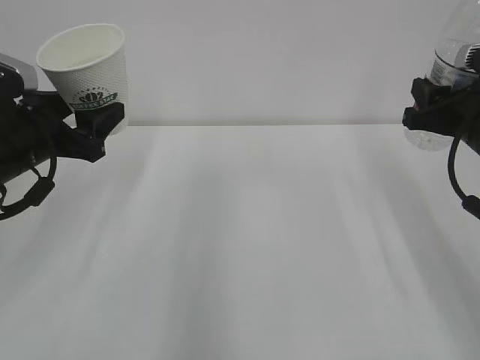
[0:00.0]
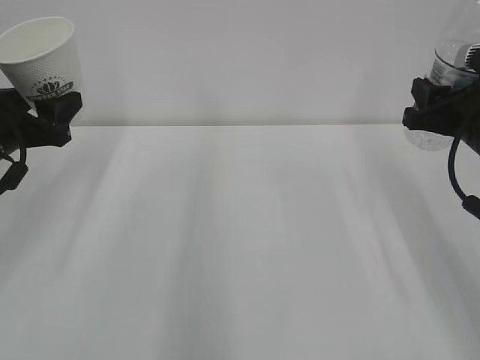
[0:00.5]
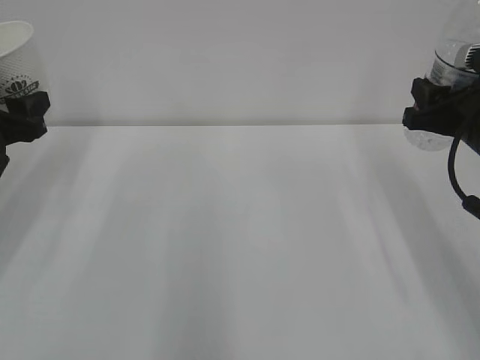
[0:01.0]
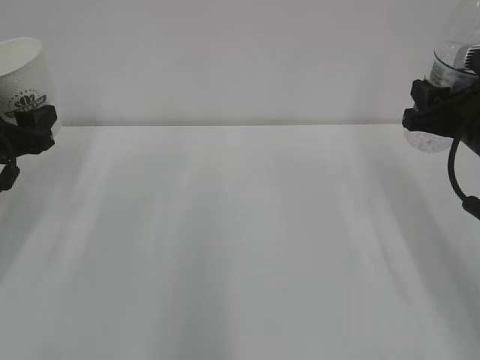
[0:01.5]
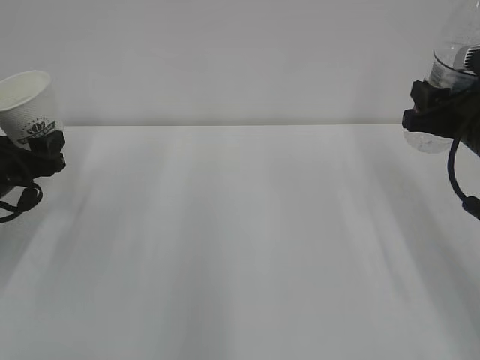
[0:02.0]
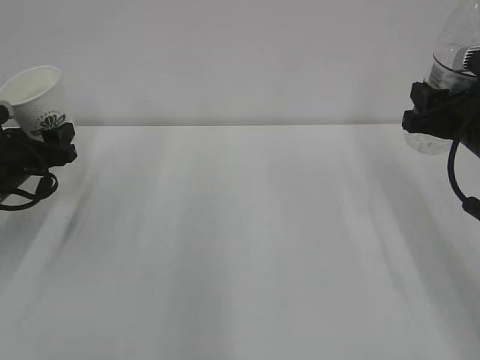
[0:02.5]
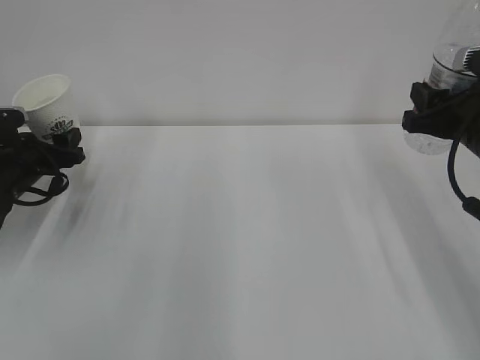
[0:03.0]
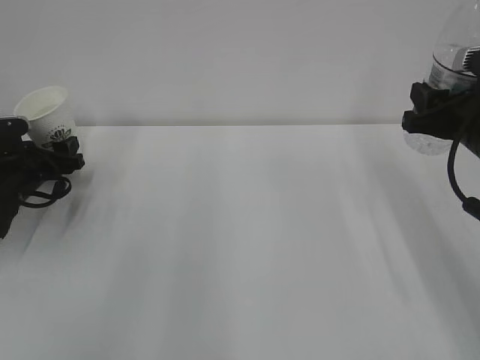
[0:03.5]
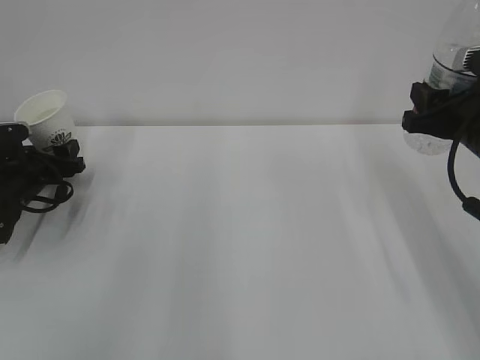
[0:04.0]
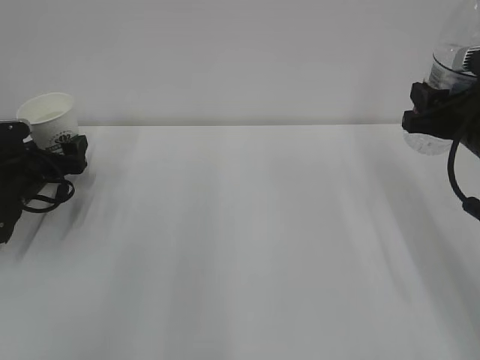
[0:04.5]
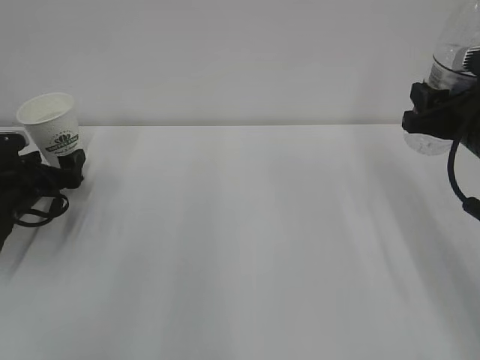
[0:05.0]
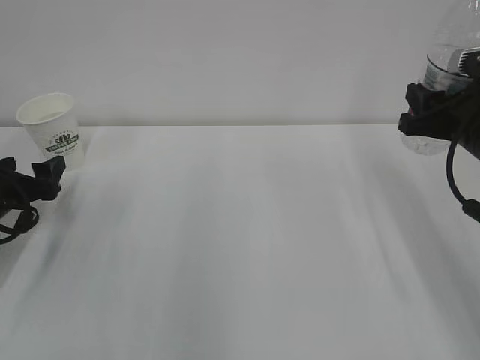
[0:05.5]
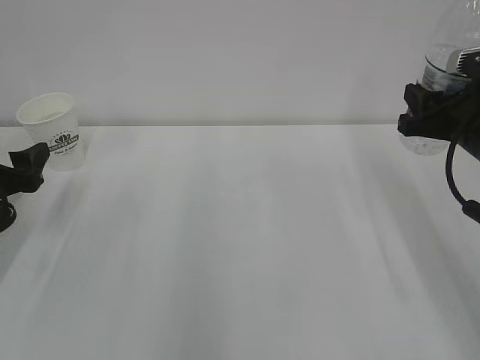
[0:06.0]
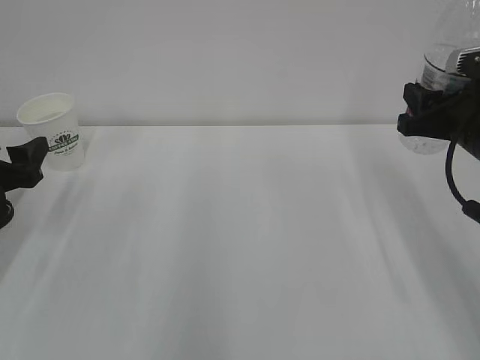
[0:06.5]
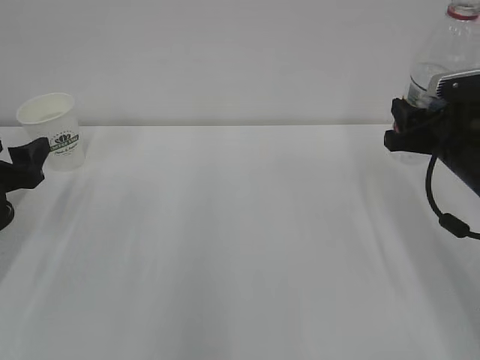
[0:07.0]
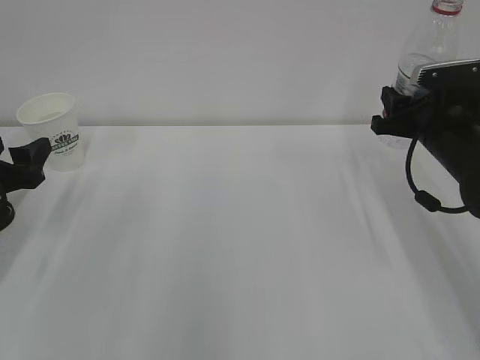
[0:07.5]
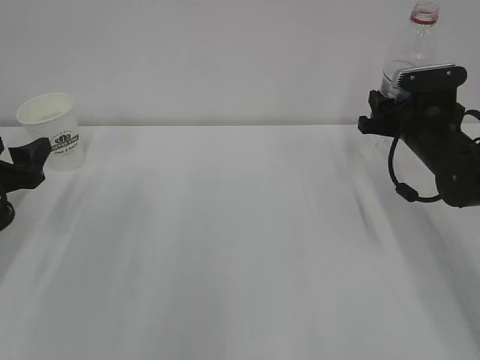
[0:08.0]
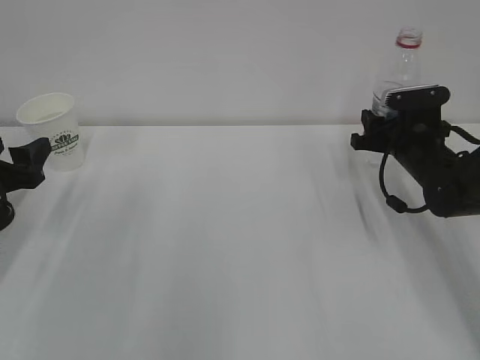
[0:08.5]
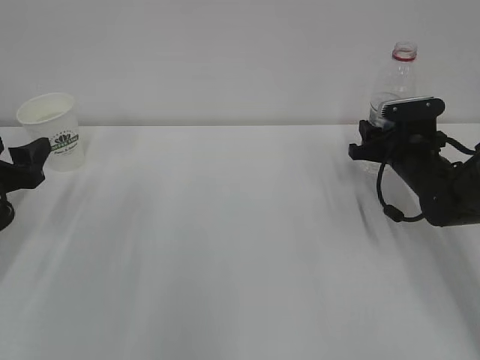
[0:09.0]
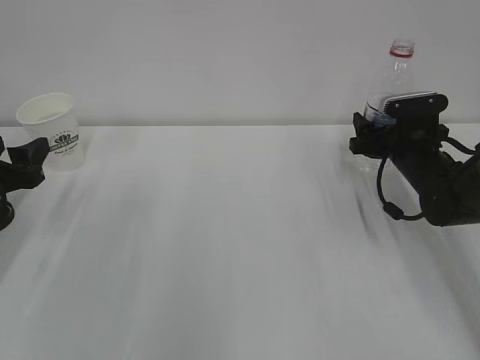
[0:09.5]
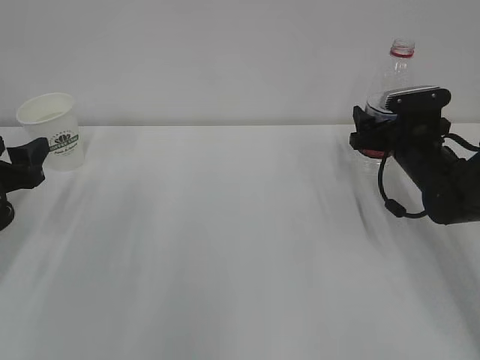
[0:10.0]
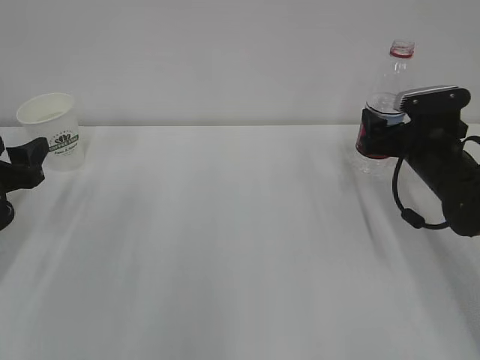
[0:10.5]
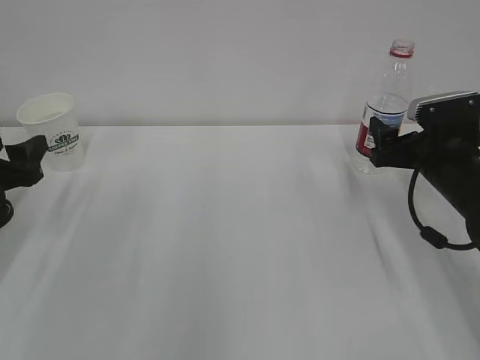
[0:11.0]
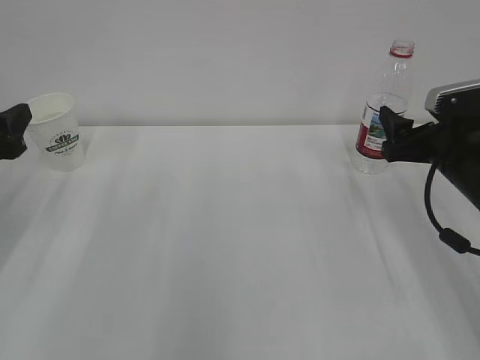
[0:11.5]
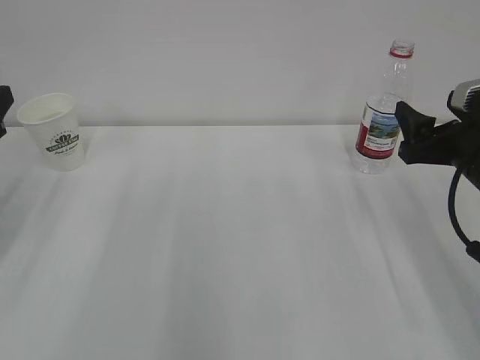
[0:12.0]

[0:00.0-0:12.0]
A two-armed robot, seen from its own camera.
0:00.0 to 0:02.0: The left gripper goes approximately 10 cm to the left and downward.
0:02.0 to 0:04.0: The left gripper moves forward and downward, roughly 10 cm.
0:04.0 to 0:06.0: The left gripper is displaced backward and upward by about 15 cm, and opens up.
0:06.0 to 0:08.0: The right gripper is displaced forward and downward by roughly 10 cm.
0:08.0 to 0:10.0: The right gripper opens.
0:10.0 to 0:12.0: The right gripper moves backward and upward, some 15 cm; the left gripper shifts roughly 10 cm upward.

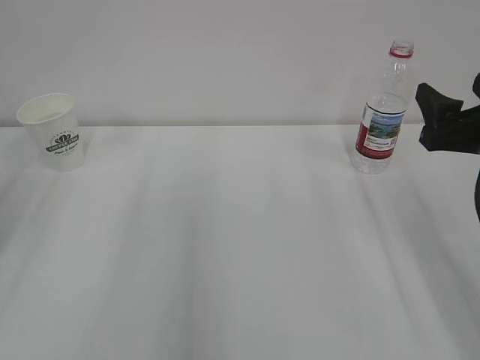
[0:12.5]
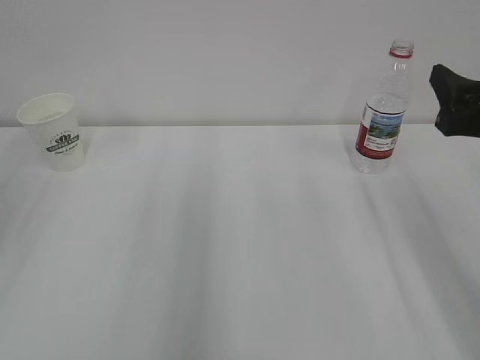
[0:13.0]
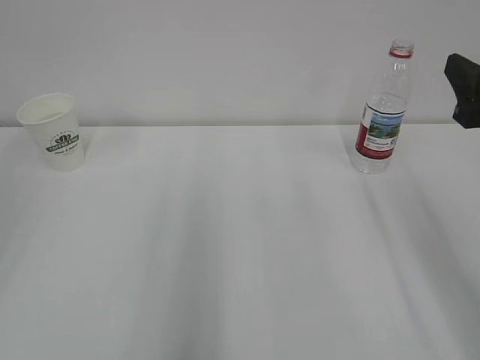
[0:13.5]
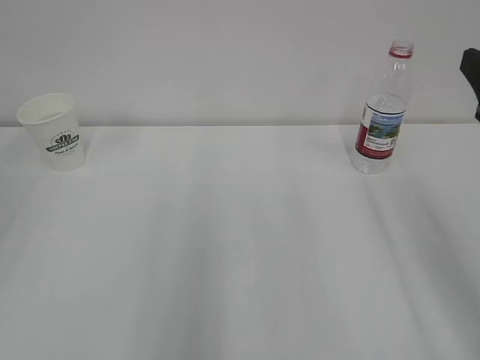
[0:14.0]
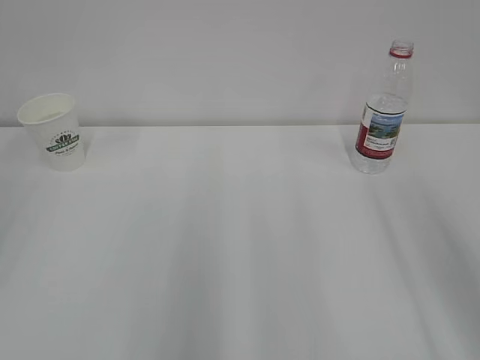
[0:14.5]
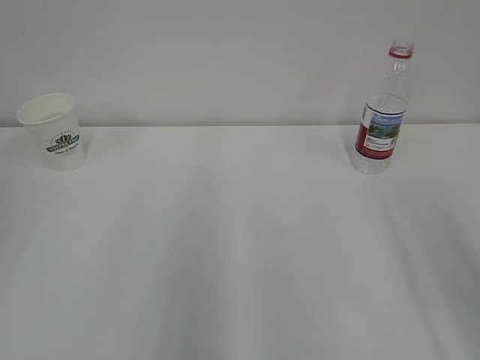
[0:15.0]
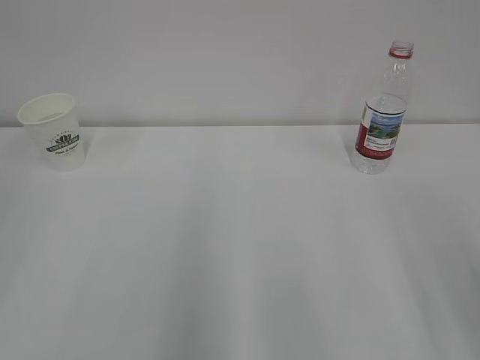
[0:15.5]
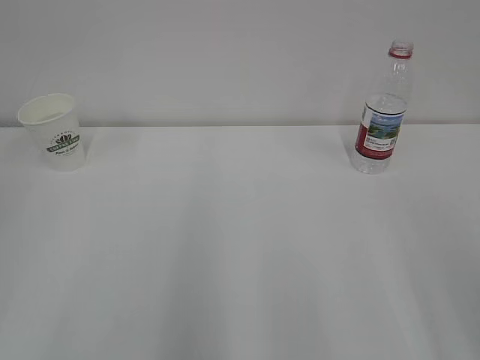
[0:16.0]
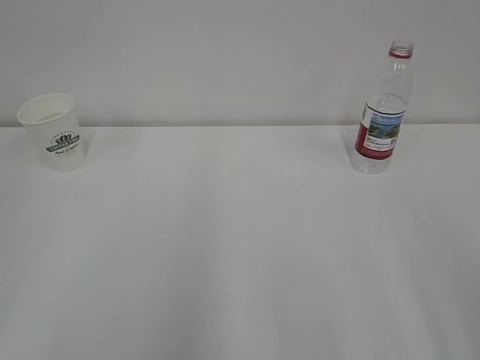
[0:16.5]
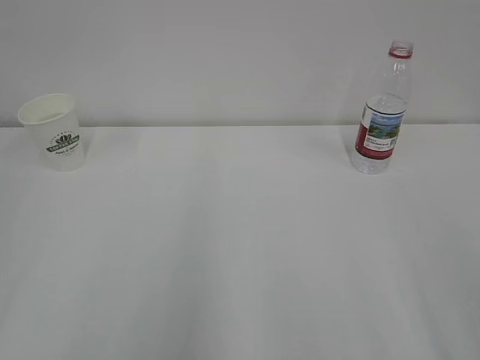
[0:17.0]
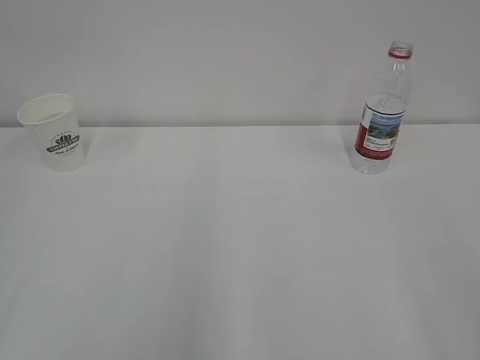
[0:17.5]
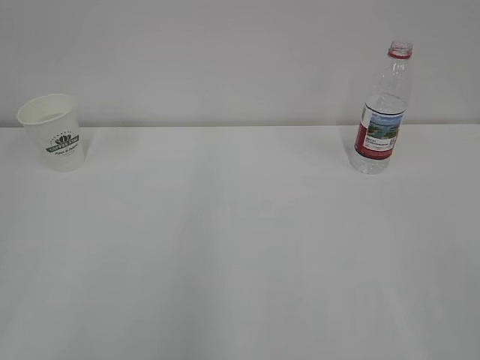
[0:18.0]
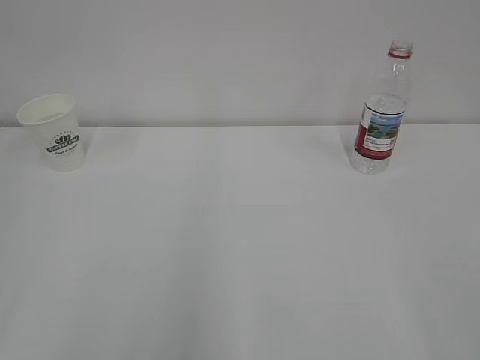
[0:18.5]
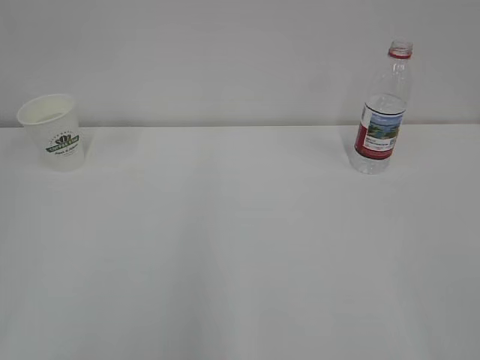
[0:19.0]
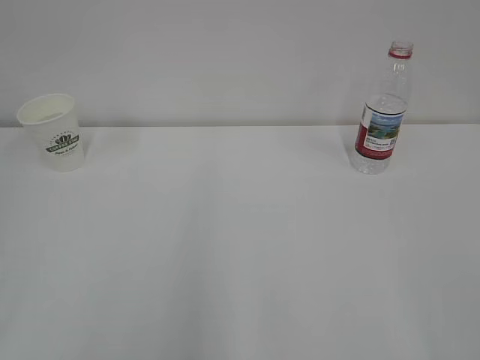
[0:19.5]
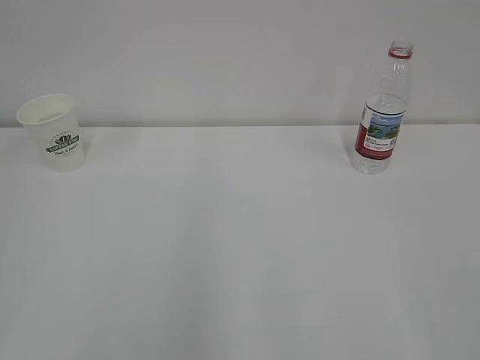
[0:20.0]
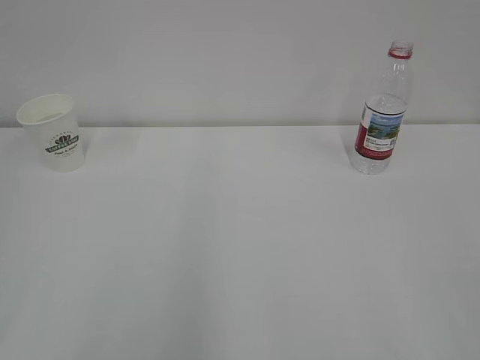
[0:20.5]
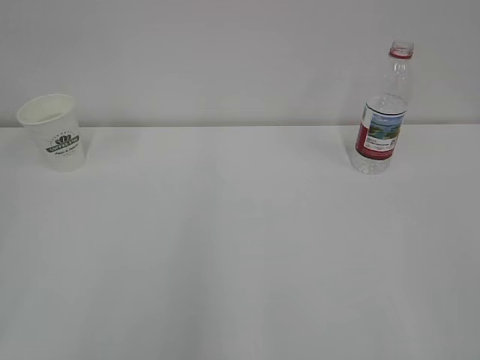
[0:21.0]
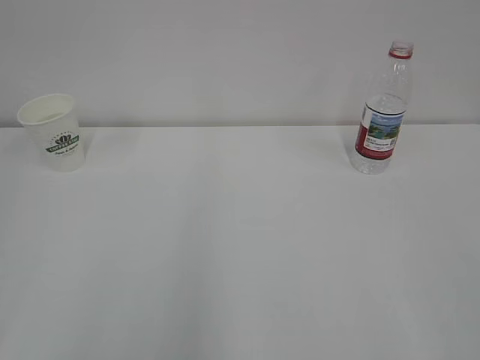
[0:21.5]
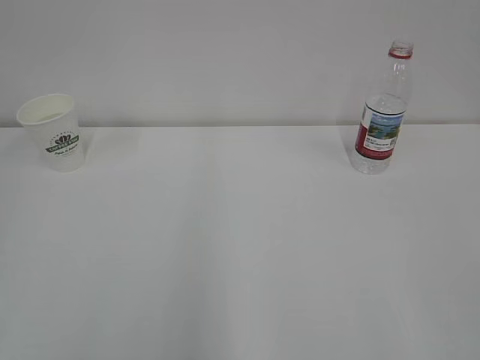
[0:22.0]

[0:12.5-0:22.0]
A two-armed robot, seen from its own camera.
0:12.5 to 0:14.5: The right gripper heads backward and upward, covering approximately 10 cm.
